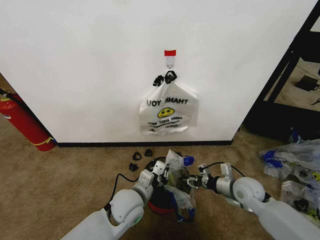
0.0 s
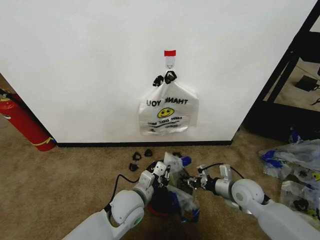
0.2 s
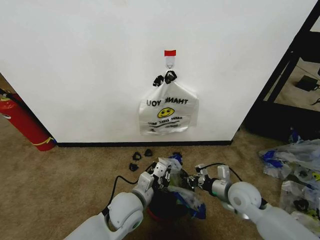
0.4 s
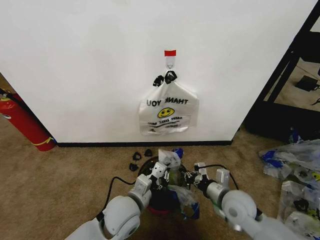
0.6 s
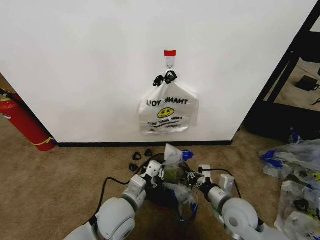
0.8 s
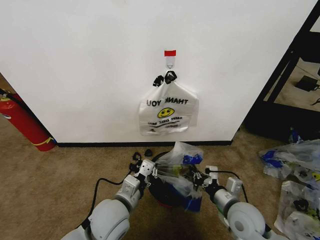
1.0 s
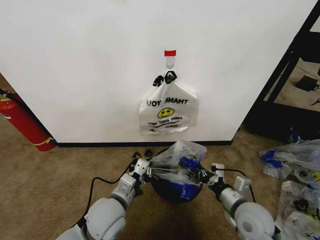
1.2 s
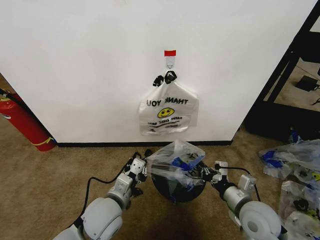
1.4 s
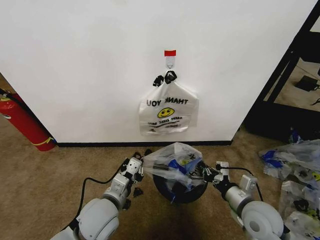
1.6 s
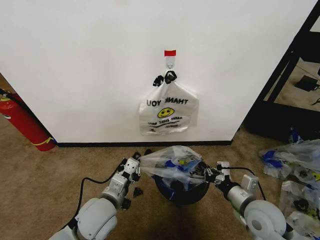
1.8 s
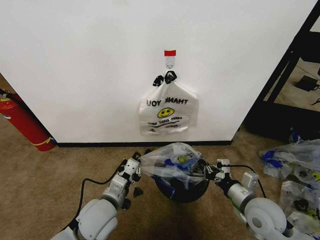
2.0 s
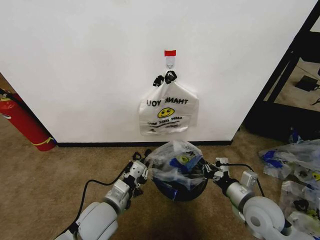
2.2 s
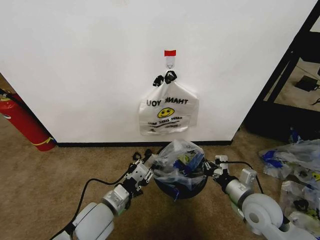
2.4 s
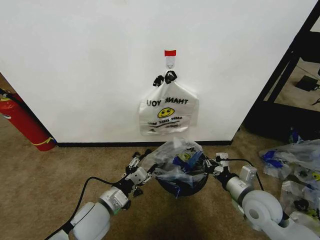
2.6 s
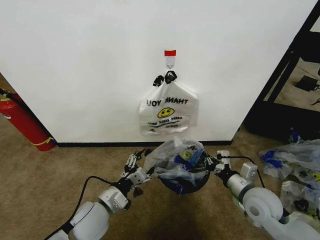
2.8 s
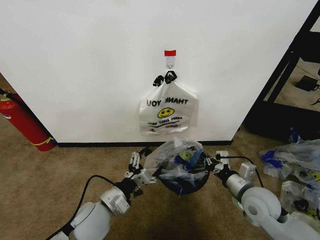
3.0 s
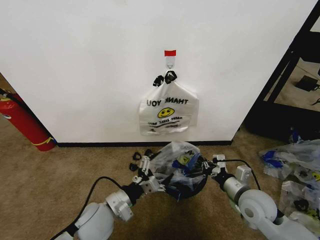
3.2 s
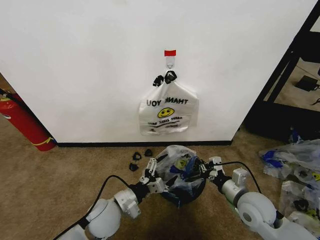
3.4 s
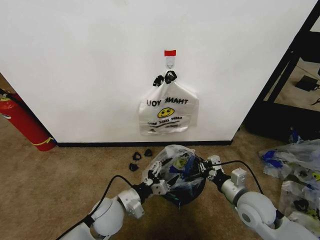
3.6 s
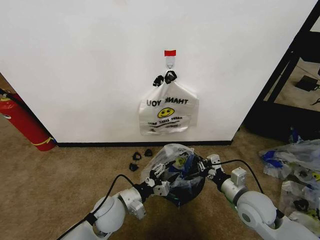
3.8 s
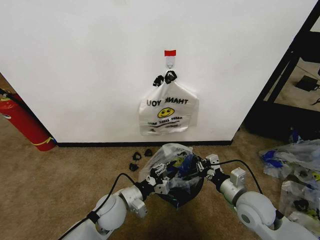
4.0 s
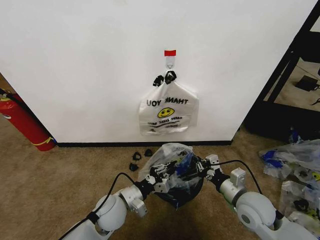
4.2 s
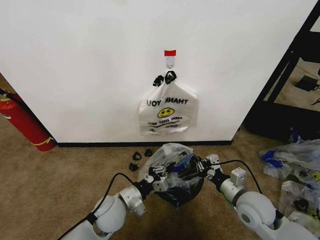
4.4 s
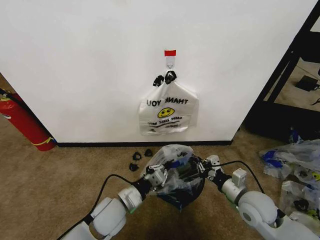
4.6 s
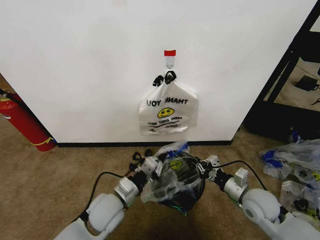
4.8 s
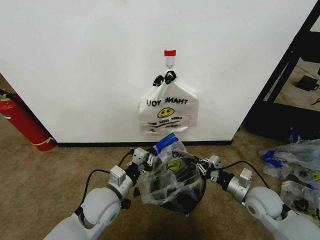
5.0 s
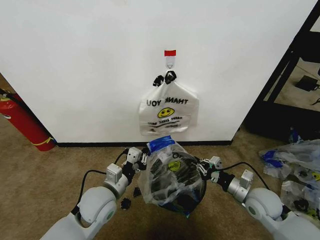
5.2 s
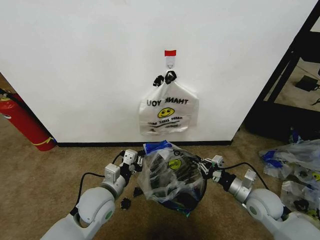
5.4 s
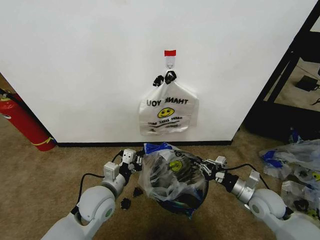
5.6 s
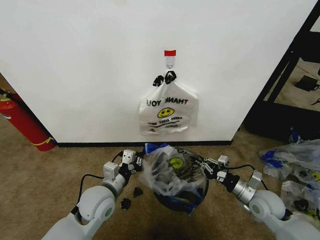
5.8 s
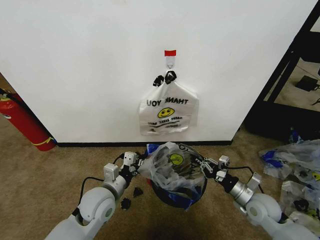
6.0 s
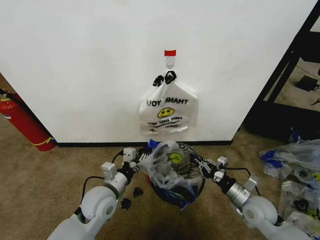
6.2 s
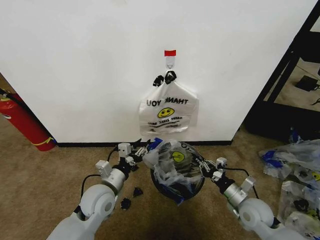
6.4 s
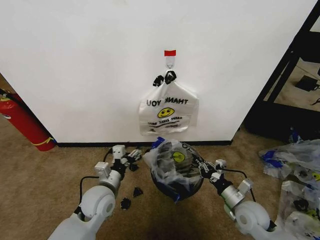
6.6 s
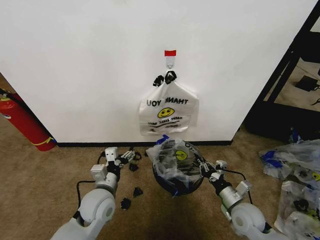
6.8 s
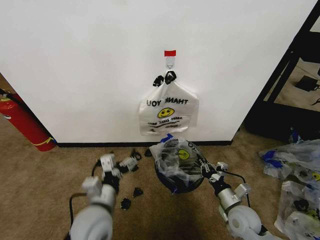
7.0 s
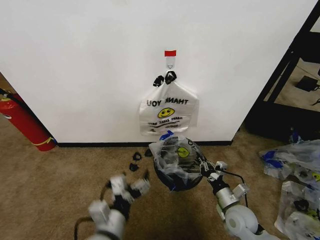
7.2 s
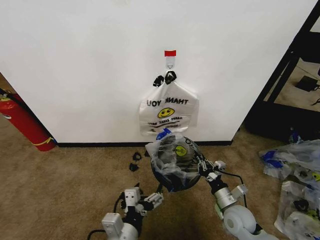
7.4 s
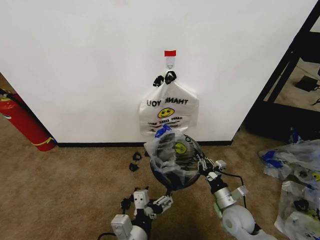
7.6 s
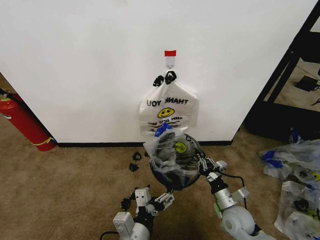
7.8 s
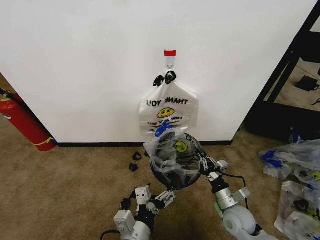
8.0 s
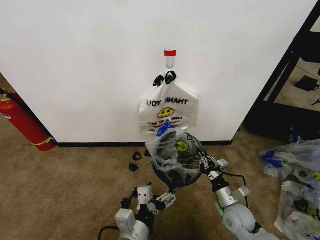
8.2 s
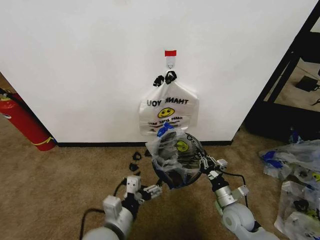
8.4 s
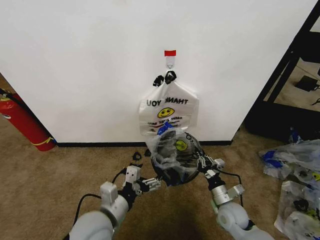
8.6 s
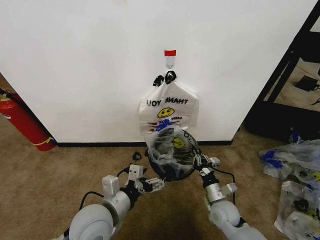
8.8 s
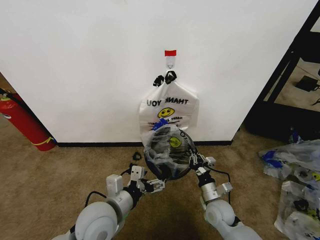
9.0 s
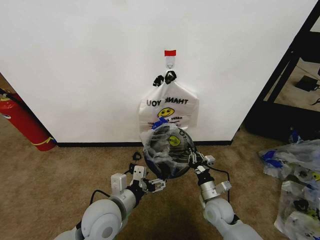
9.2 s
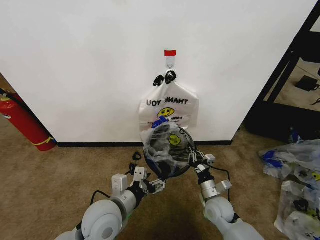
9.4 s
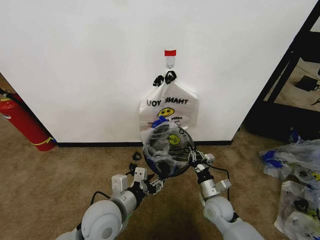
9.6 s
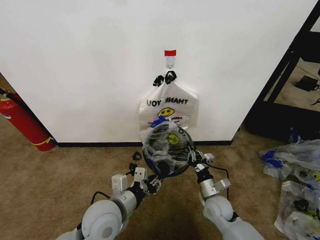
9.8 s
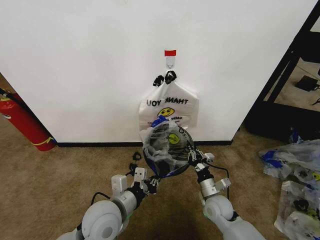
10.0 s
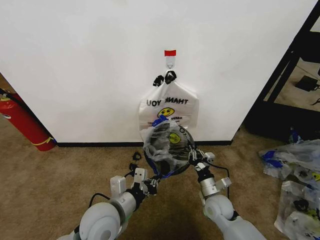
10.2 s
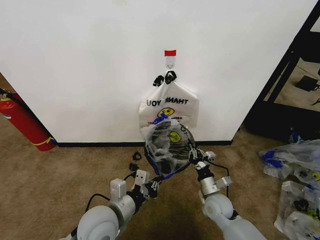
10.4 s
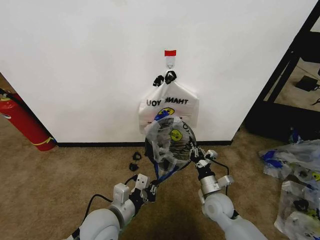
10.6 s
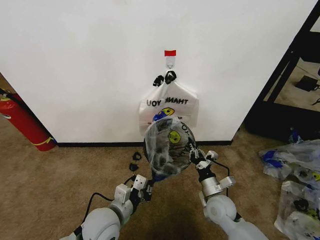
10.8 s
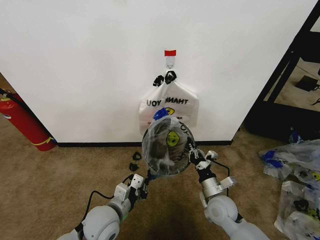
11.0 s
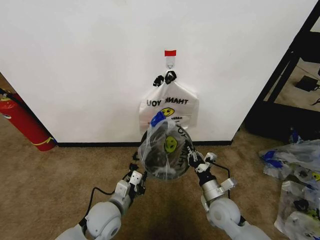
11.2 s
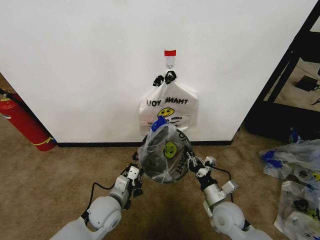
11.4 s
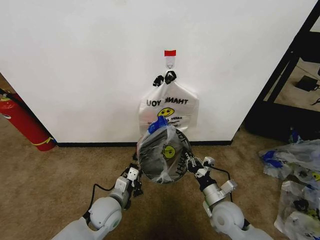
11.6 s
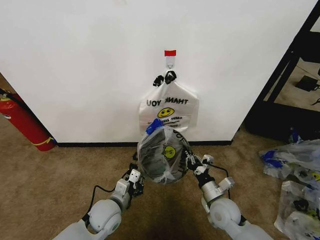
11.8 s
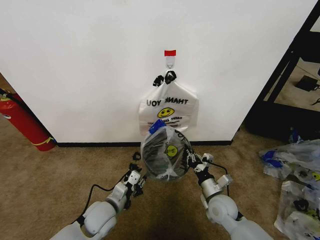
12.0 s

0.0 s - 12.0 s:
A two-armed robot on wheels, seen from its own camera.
Task of the whole recording: Pick up the garbage bag from the wall and place it over the trash bin.
0.0 s - 1.6 s: The right gripper heads backward and upward, covering roughly 10 cm, and closes; the left gripper moves to the left, approximately 5 cm.
1.6 s - 3.0 s: The left gripper opens.
3.0 s - 4.4 s: The left gripper shifts by roughly 5 cm, and closes.
4.4 s - 6.0 s: The left gripper changes place by about 5 cm, while the right gripper shifts approximately 10 cm to the right and downward.
6.0 s - 7.6 s: The left gripper shifts about 20 cm backward and to the right, and opens; the right gripper moves to the left, roughly 5 cm.
7.6 s - 9.0 s: The right gripper ends up roughly 5 cm from where it was, while the left gripper is displaced forward and to the left by roughly 10 cm.
9.0 s - 10.4 s: The left gripper closes up.
10.4 s - 12.0 s: The left gripper moves downward and forward, some 10 cm.

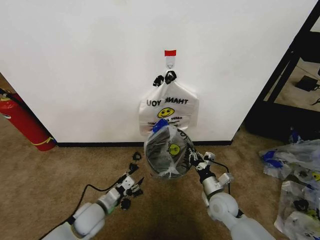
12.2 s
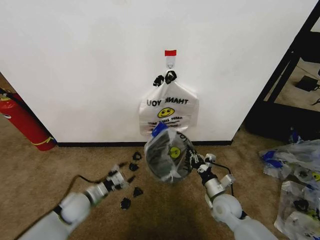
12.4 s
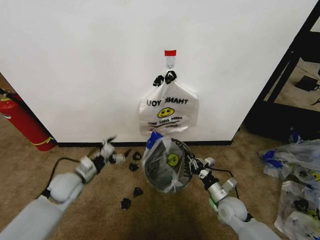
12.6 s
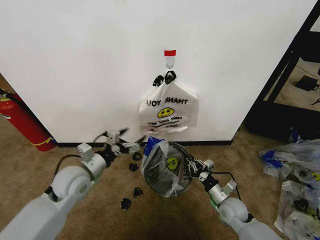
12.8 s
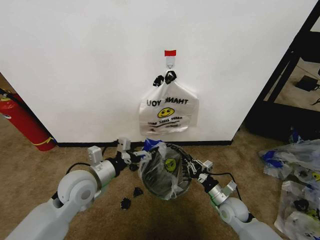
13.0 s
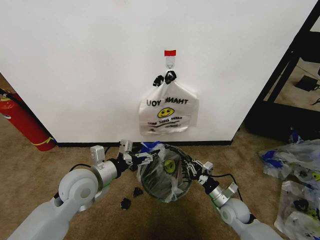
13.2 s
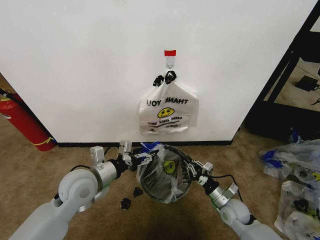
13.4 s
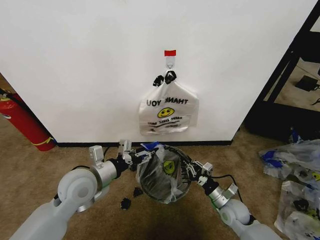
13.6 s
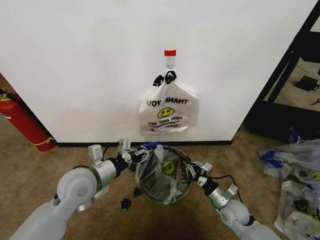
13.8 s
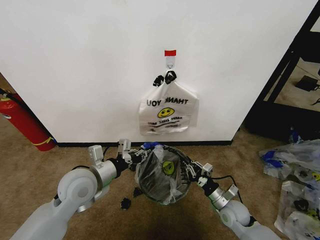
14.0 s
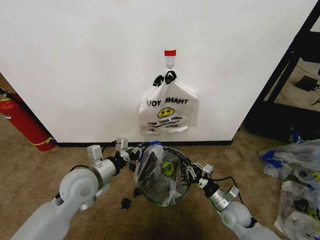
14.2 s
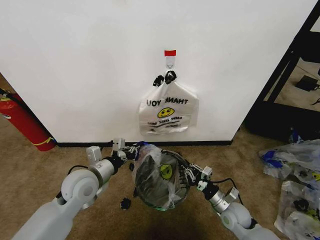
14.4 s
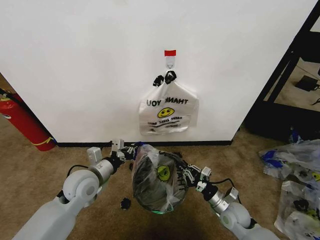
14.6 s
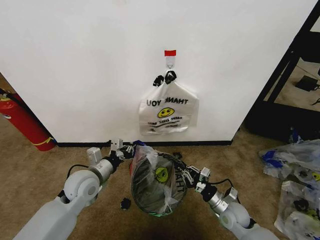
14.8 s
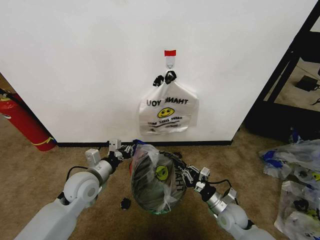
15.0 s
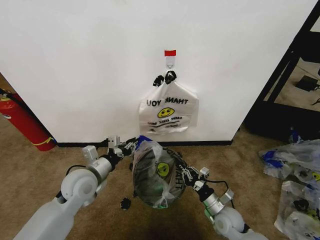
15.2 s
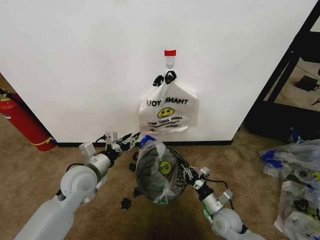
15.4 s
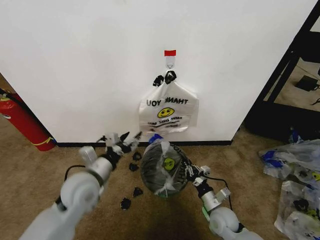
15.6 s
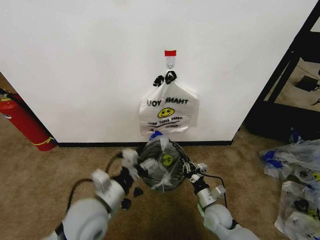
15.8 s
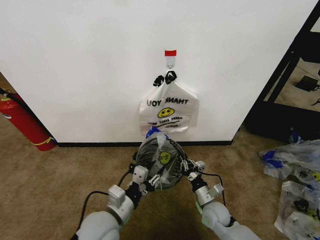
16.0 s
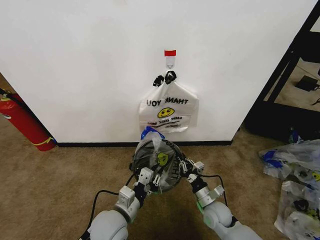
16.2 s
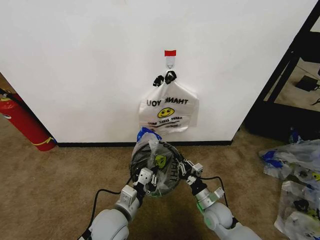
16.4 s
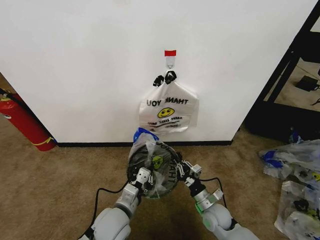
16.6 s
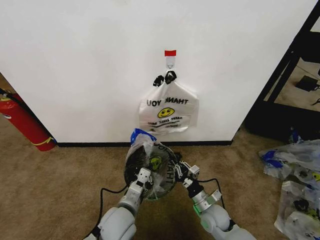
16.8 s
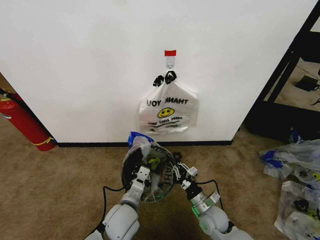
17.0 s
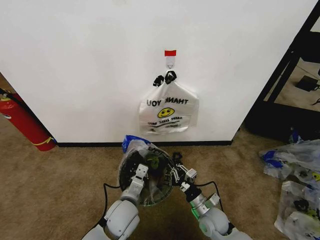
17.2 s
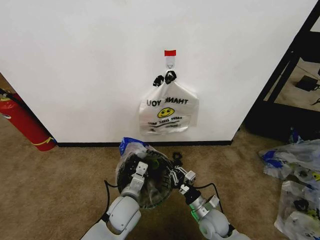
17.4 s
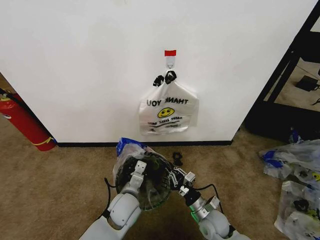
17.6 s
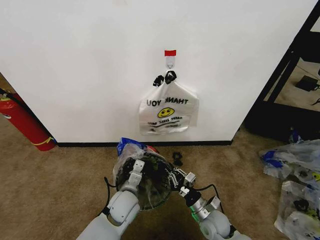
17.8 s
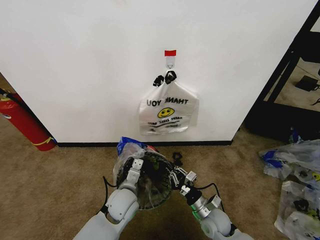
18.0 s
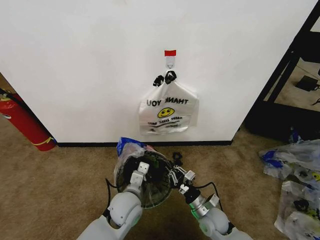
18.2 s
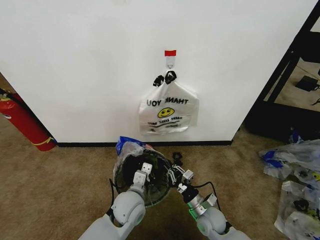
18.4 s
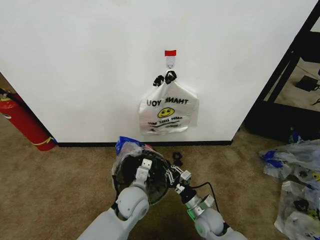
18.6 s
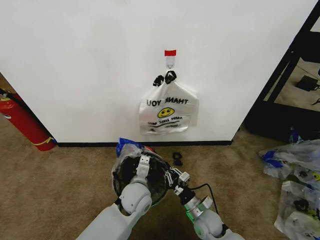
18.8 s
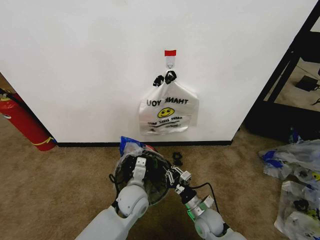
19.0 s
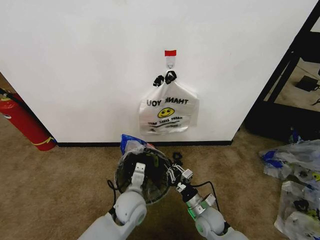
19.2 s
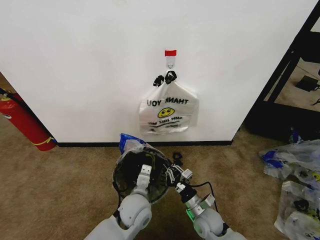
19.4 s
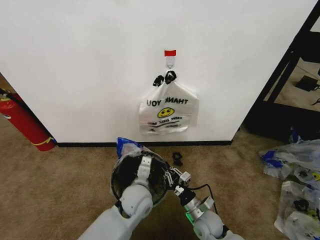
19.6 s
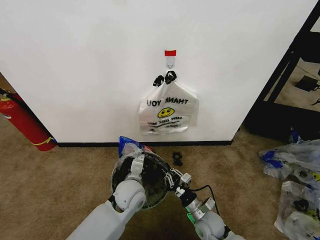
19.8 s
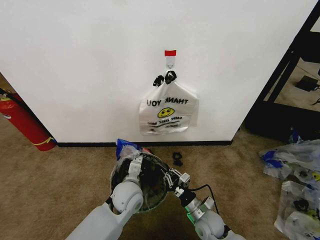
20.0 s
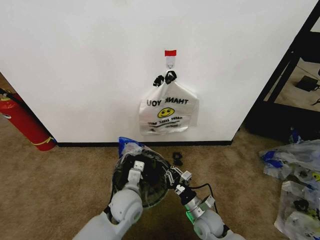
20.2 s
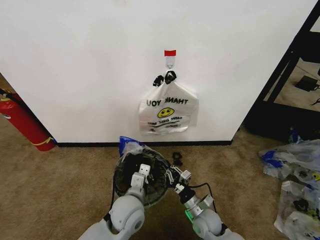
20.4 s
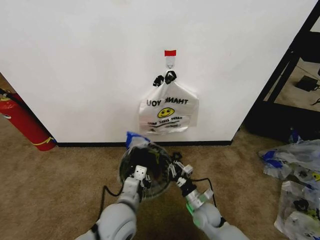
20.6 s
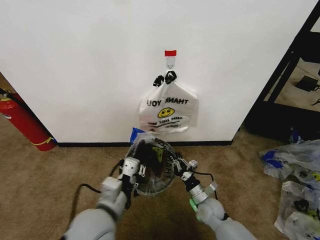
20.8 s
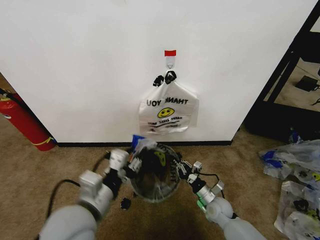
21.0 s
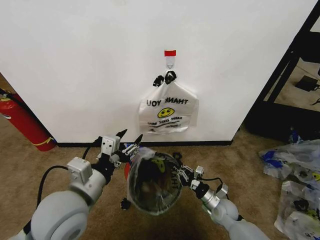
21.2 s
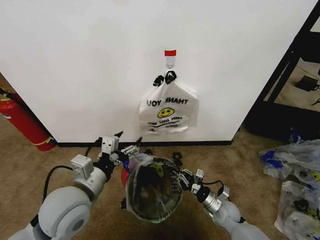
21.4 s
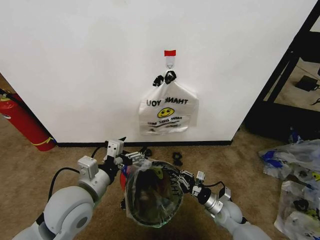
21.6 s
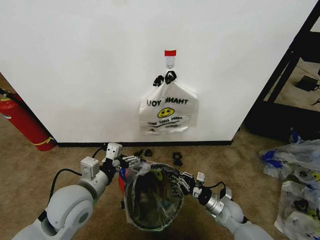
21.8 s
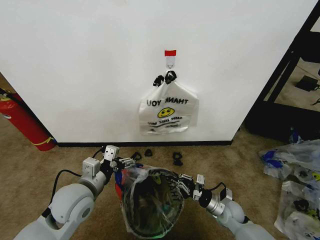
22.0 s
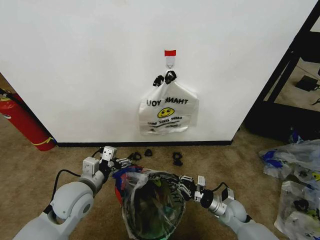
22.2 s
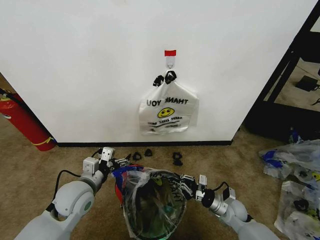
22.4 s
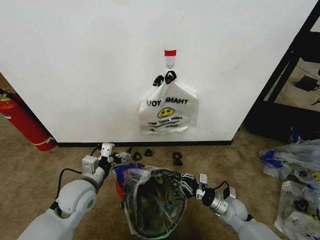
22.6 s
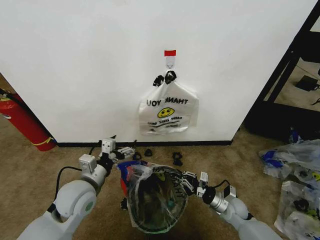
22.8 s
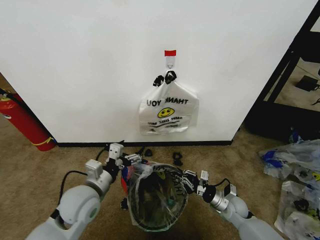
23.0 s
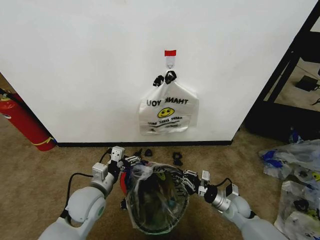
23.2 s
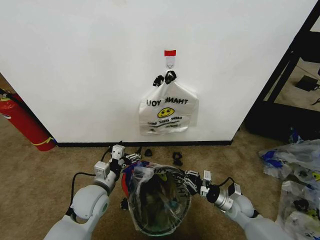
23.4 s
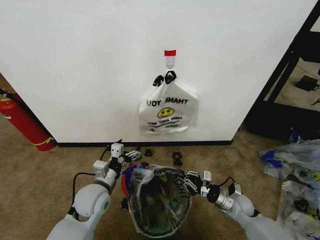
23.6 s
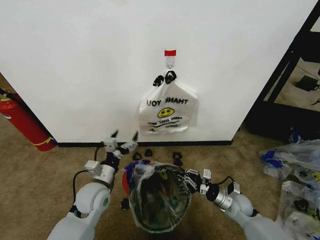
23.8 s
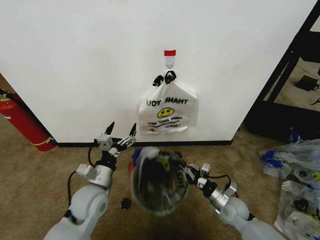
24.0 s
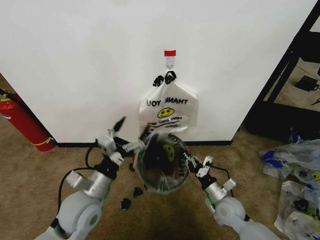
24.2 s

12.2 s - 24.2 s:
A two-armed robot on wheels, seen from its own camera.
Task of the whole recording: Pick up the garbage bag from the wall and place it over the trash bin.
12.2 s - 13.8 s: The right gripper changes place by about 5 cm, while the left gripper shifts about 20 cm upward, and opens, then closes once more.
15.2 s - 16.6 s: The left gripper shifts about 15 cm to the right, backward and downward, and opens, then closes once more.
16.6 s - 18.2 s: The left gripper is displaced forward by about 5 cm.
18.2 s - 19.8 s: The grippers stay close to where they were, moving slightly.
19.8 s - 21.2 s: The left gripper travels upward, backward and to the left by about 25 cm, and opens, while the right gripper moves to the right and forward, approximately 10 cm.
21.2 s - 22.6 s: The left gripper heads downward and forward, covering some 15 cm, and opens its fingers.
22.6 s - 24.2 s: The left gripper shifts by approximately 5 cm, while the right gripper shifts by roughly 5 cm.
